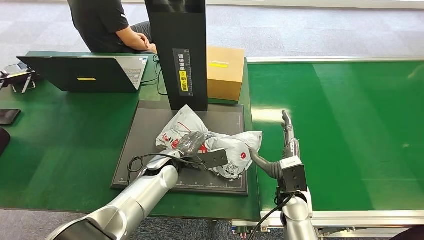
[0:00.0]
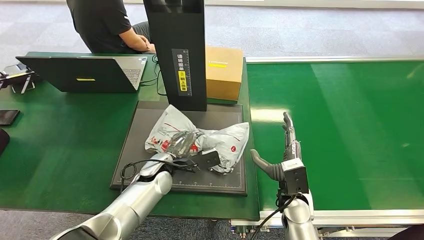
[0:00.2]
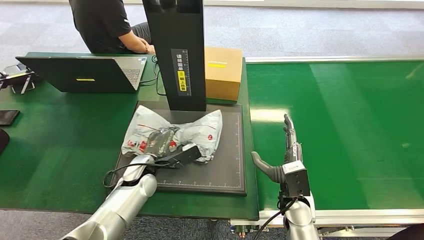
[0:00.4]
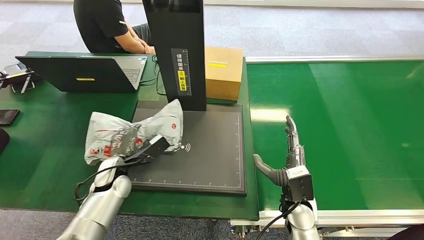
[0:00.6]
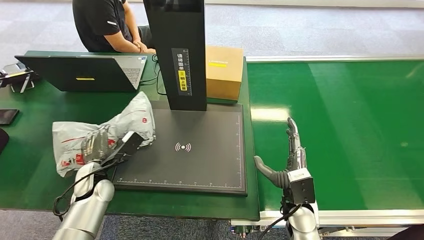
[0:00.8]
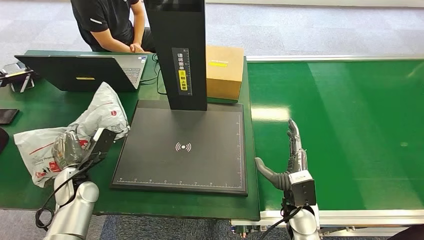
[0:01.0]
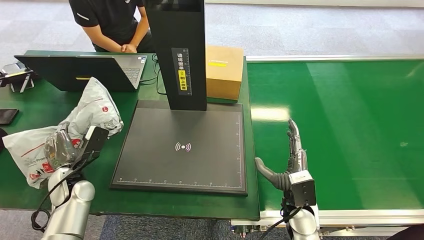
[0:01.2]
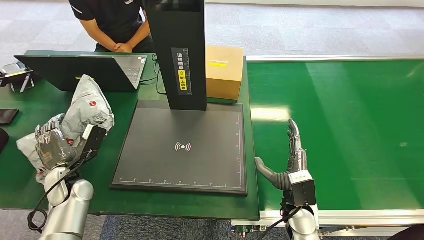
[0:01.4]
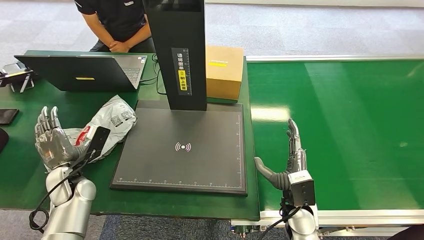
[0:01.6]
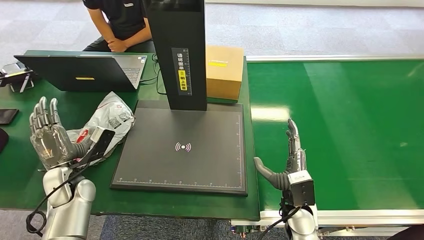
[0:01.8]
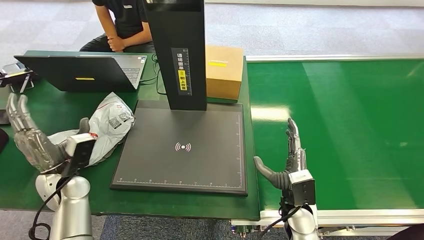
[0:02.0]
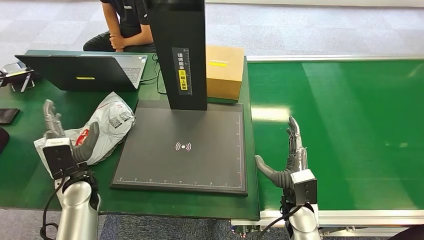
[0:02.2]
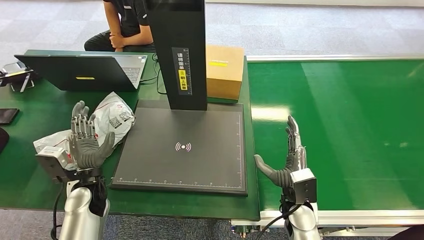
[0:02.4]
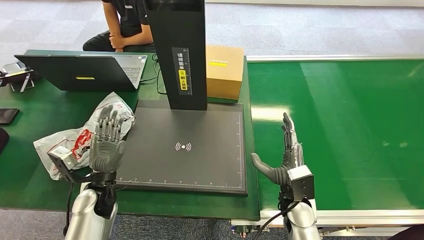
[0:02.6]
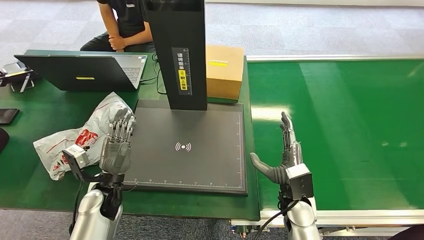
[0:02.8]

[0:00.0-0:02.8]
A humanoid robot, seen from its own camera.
Task of the whole recording: Weigh the package on the weighing device and place it in the left basket.
Step, 0:01.2 to 0:02.8: Place the package into the parcel locker.
0:01.4 to 0:02.8: The left hand moves to the right, about 10 cm.
